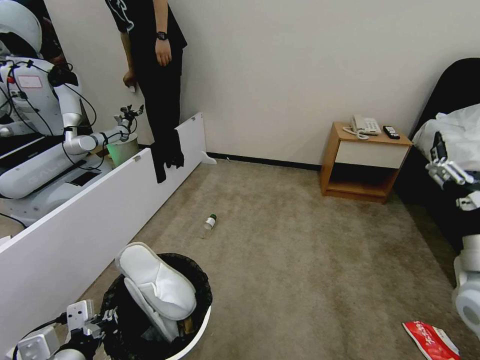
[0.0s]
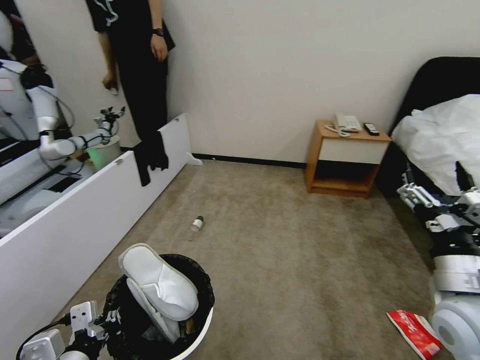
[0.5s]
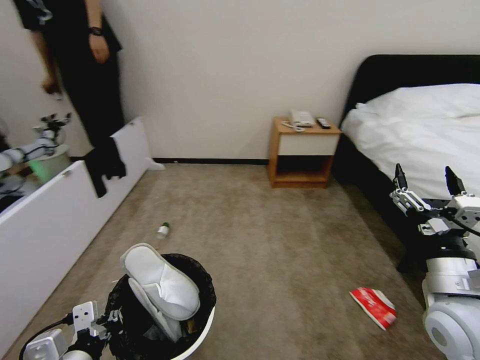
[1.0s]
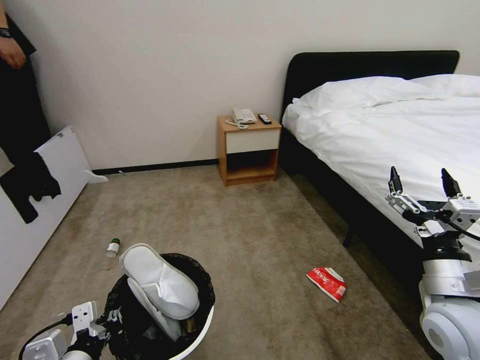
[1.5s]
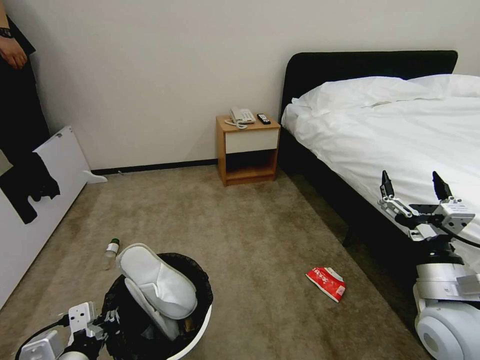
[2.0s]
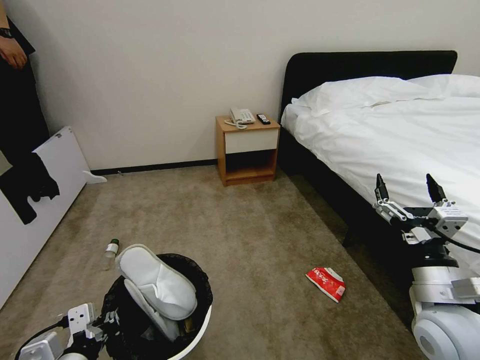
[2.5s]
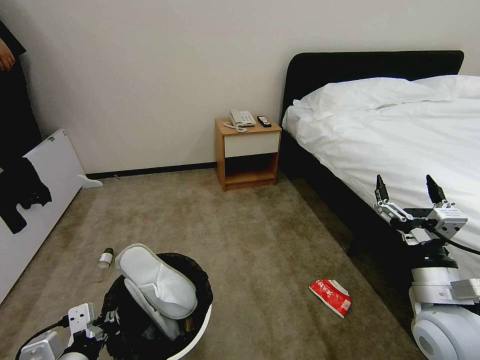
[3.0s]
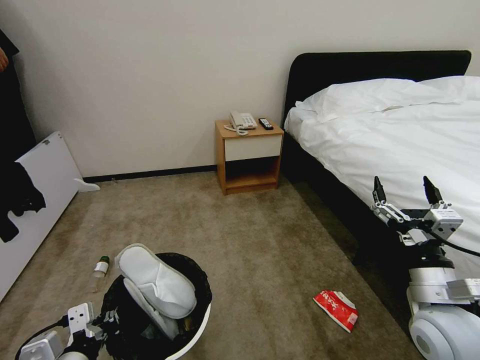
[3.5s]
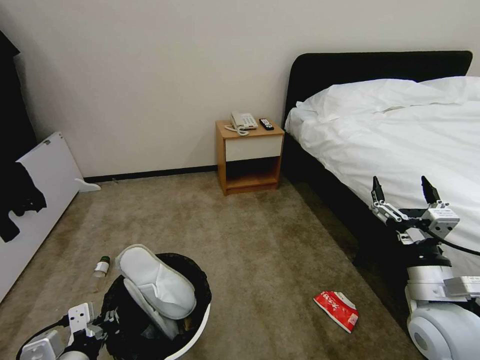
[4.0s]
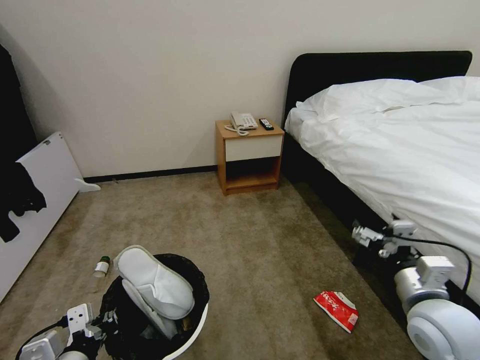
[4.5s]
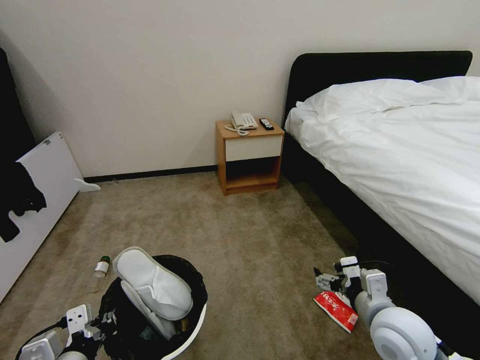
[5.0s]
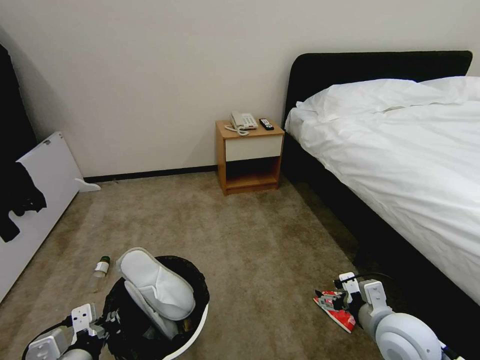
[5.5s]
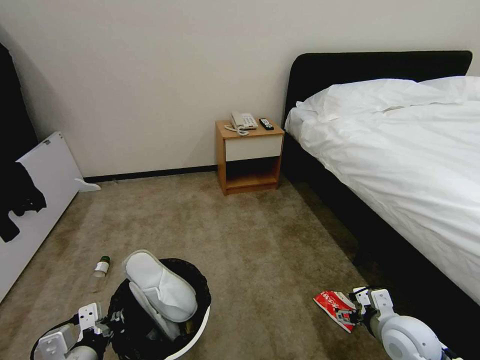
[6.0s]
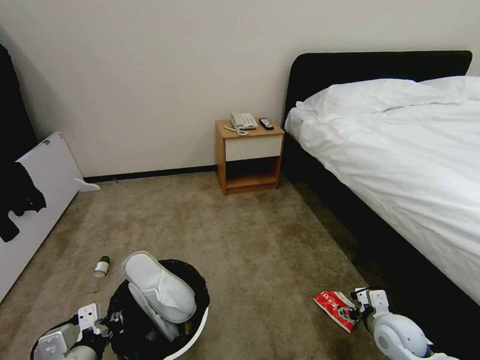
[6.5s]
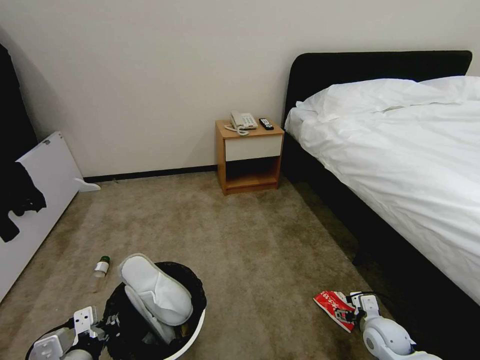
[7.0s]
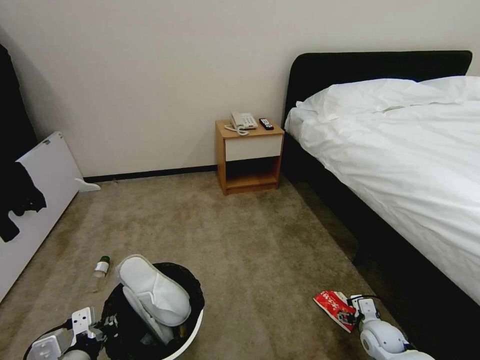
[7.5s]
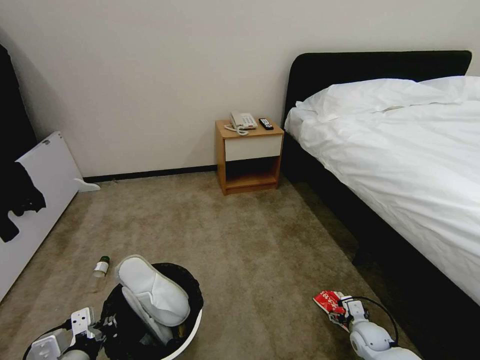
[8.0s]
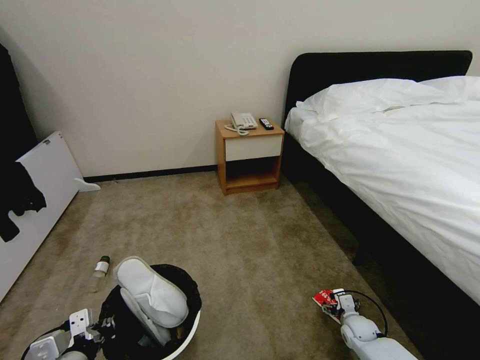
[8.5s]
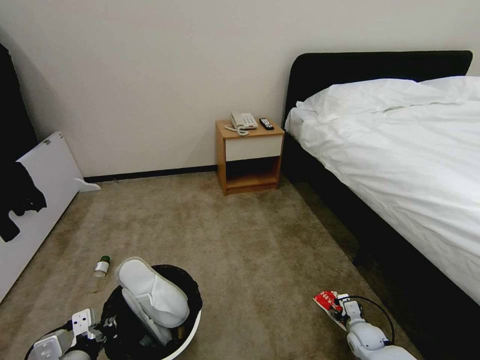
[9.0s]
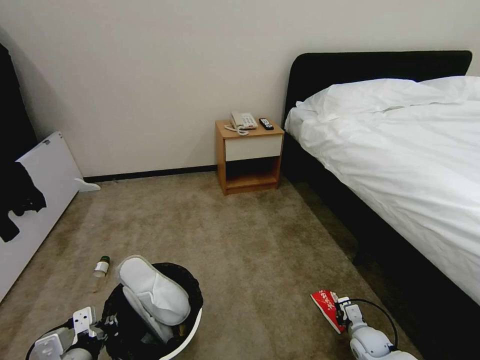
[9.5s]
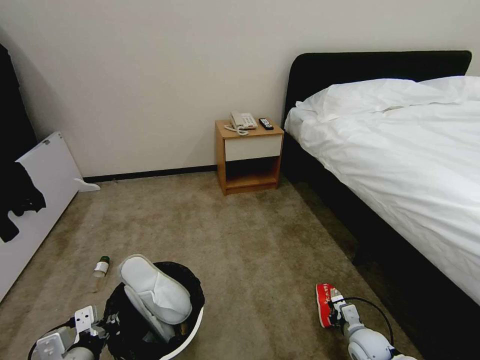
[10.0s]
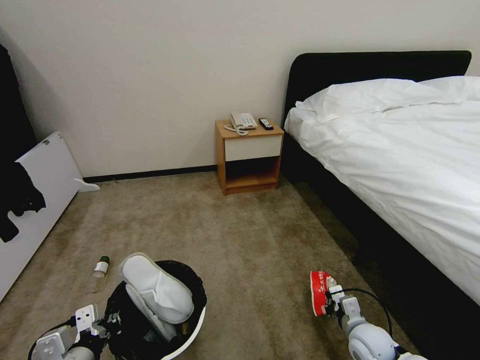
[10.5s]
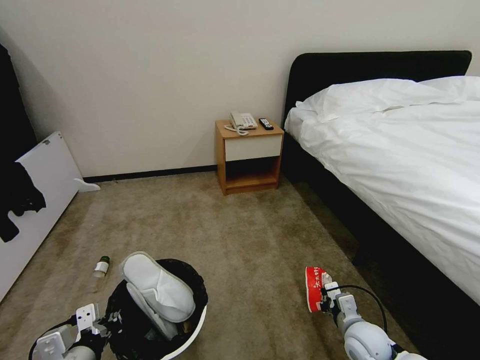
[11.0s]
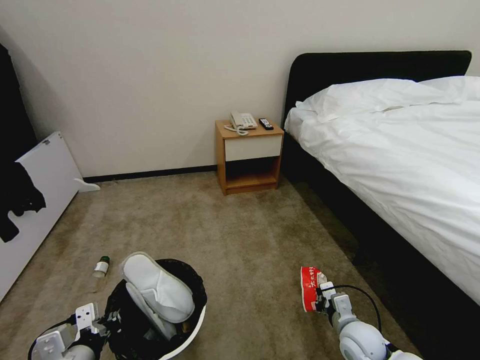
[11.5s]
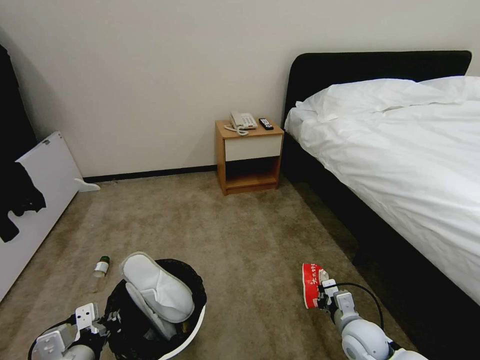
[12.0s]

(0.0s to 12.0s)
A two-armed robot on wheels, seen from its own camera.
Task of the whole recording: Pick up the trash bin, then pick up the garbage from the floor and place it into the trash bin.
0.0s - 2.0s: The right gripper travels downward by some 5 cm.
2.0s - 4.0s: The grippers make only small movements.
4.0s - 6.0s: The right gripper moves downward, approximately 10 cm.
6.0s - 8.0s: The right gripper shifts some 20 cm downward.
8.0s - 10.0s: The right gripper ends up about 5 cm from where it was, and closes its fingers.
10.0s - 12.0s: The right gripper moves upward, some 10 cm.

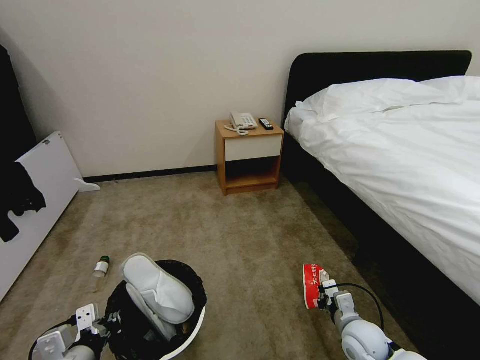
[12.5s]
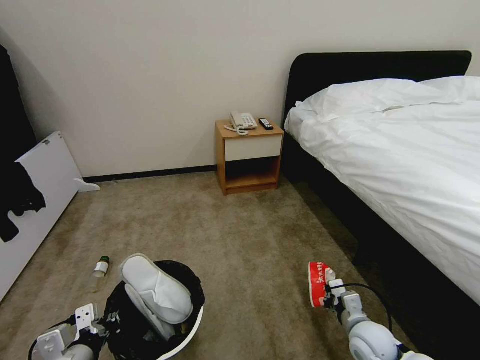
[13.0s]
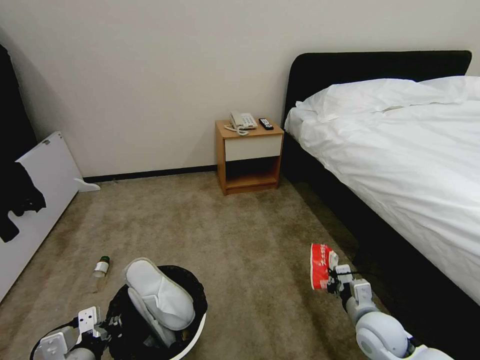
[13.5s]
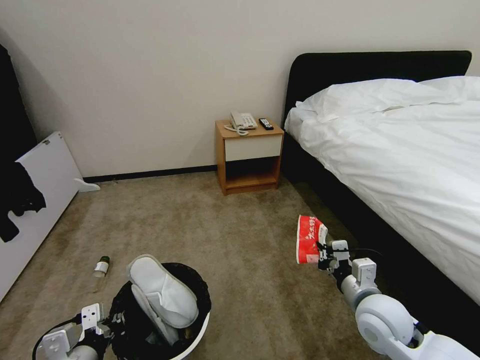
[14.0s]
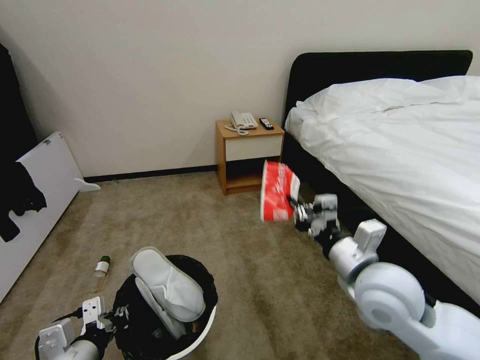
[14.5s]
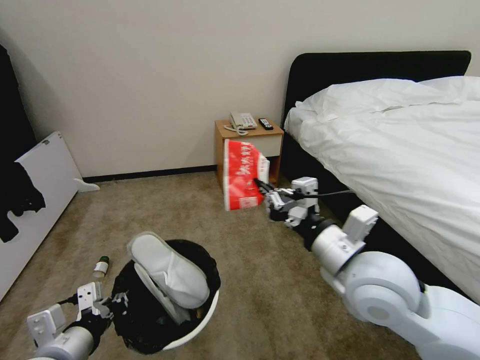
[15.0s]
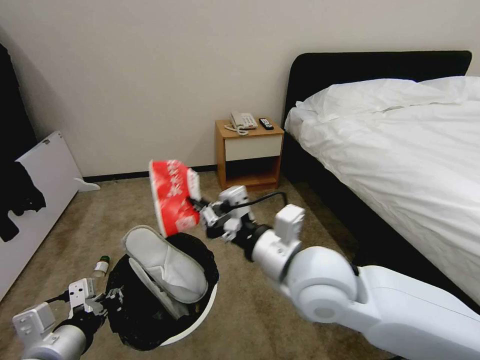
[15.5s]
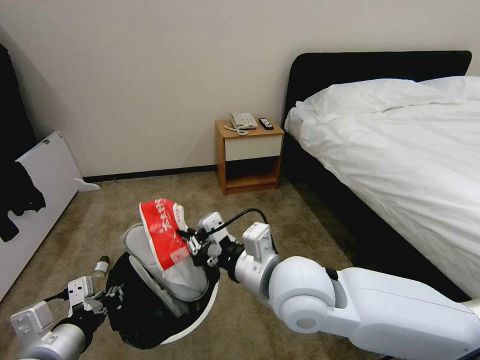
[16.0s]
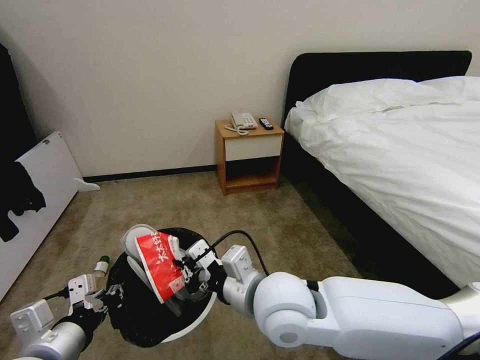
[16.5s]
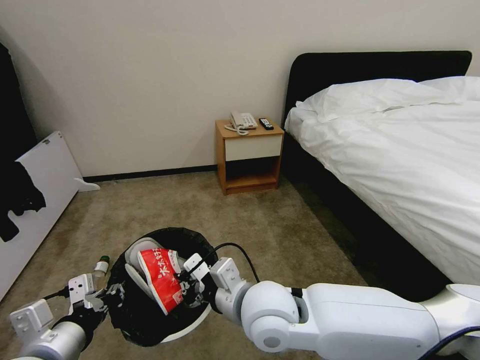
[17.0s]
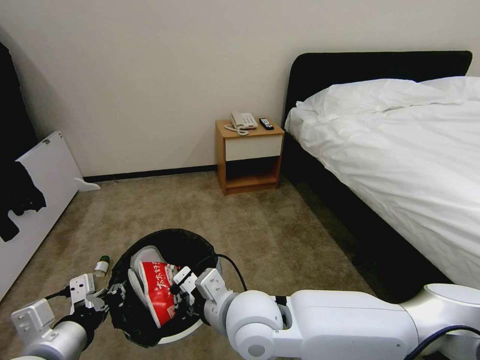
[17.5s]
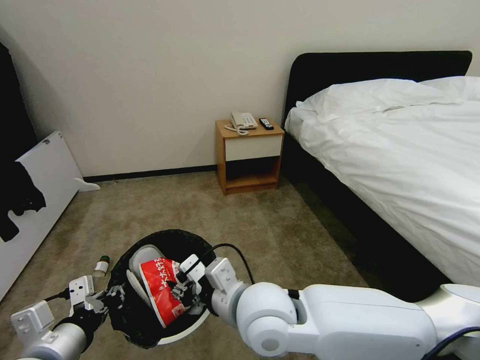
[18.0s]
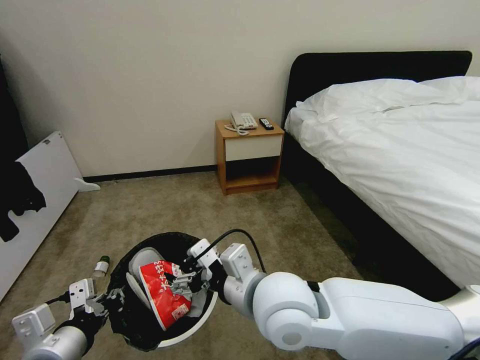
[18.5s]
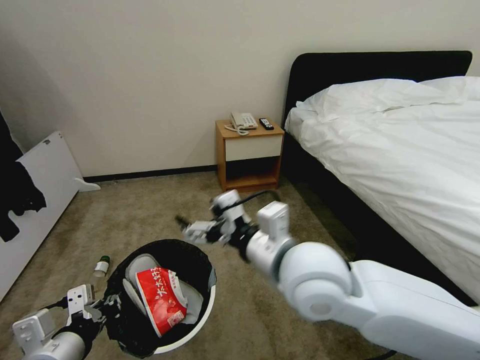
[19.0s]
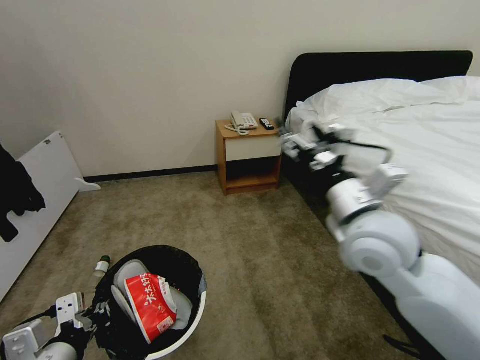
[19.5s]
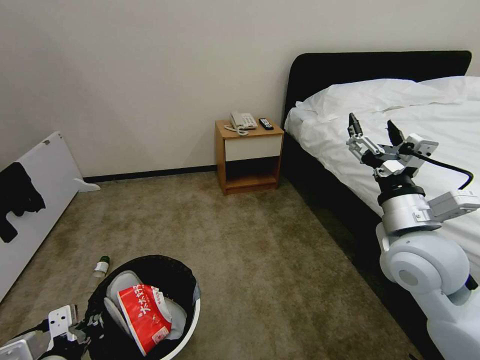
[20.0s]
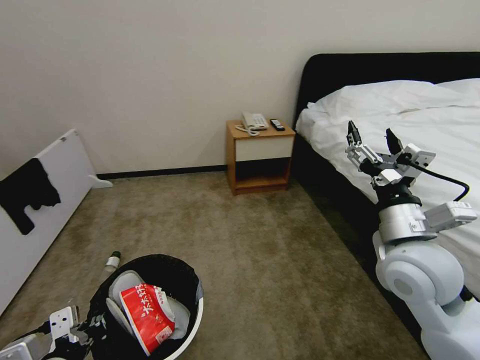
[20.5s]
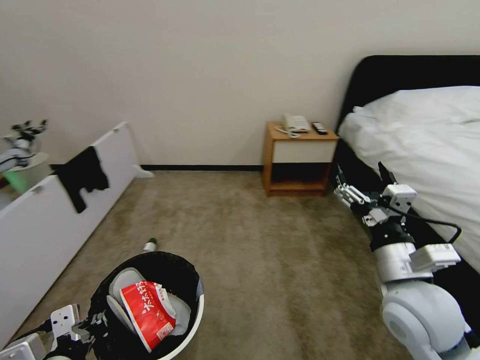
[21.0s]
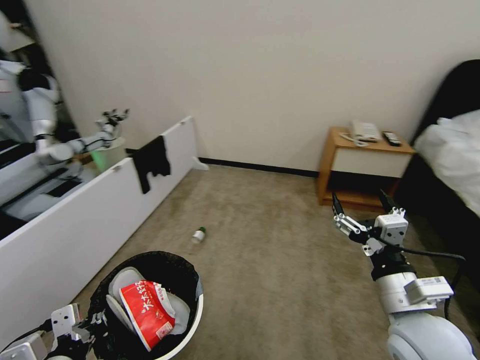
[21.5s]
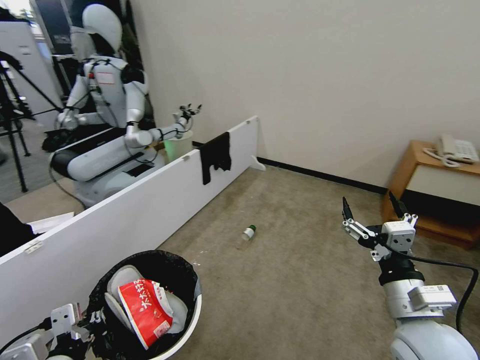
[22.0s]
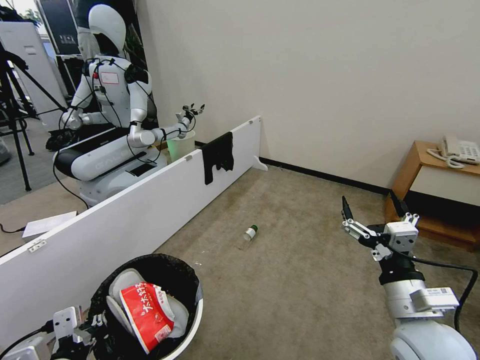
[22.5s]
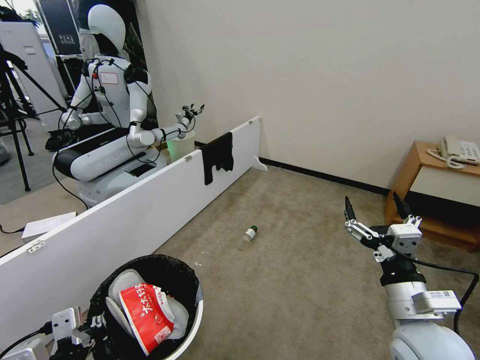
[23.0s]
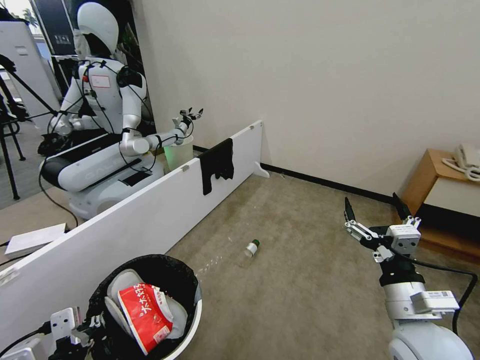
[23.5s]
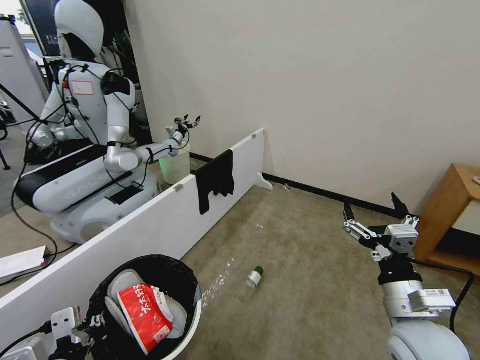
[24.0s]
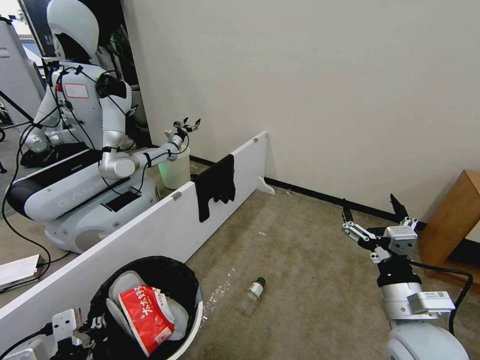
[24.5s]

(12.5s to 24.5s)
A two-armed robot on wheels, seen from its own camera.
Task of the whole recording: Pick up the trash bin, then pick up the garbage from the floor and place it into the trash bin.
12.5s - 14.5s: The right gripper travels upward by approximately 25 cm.
14.5s - 16.5s: The right gripper travels to the left by some 15 cm. The left gripper moves upward, about 5 cm.
16.5s - 18.5s: The right gripper opens its fingers.
18.5s - 20.5s: The right gripper goes roughly 20 cm to the right.
20.5s - 22.5s: The right gripper travels downward and backward by roughly 15 cm.

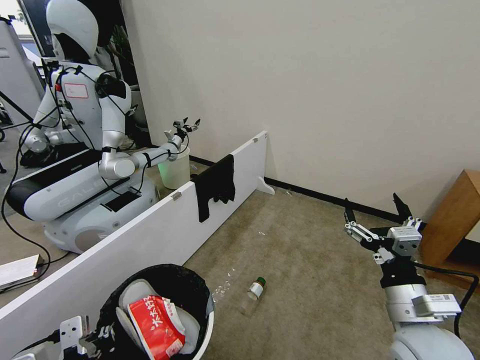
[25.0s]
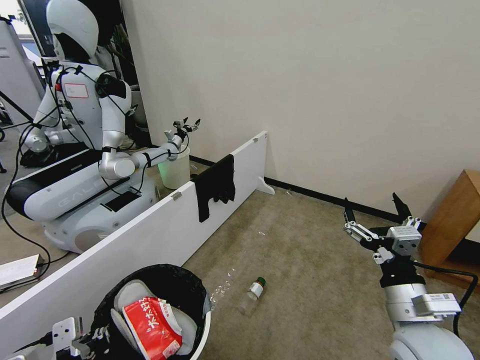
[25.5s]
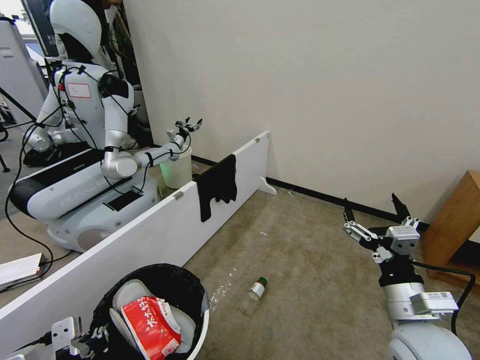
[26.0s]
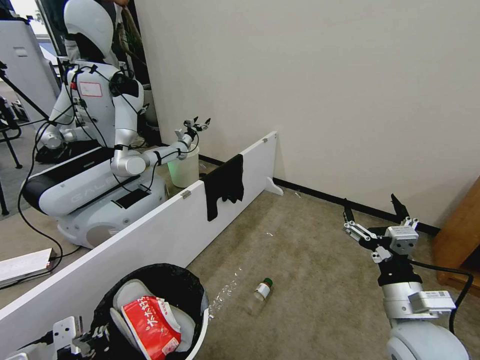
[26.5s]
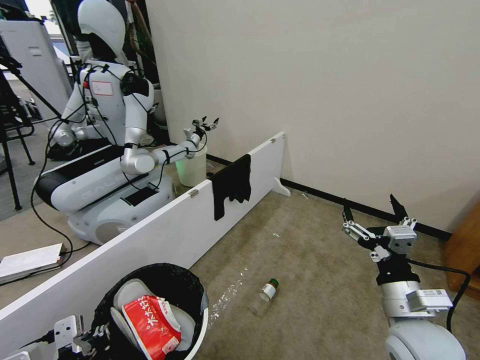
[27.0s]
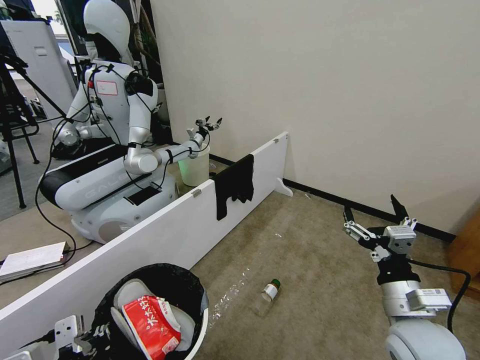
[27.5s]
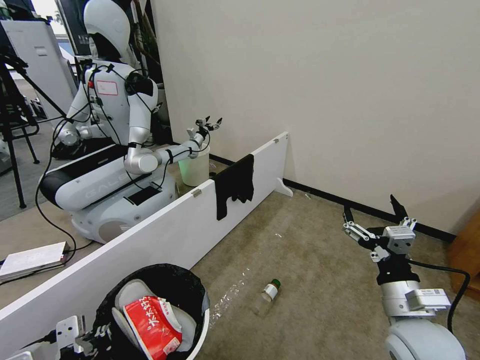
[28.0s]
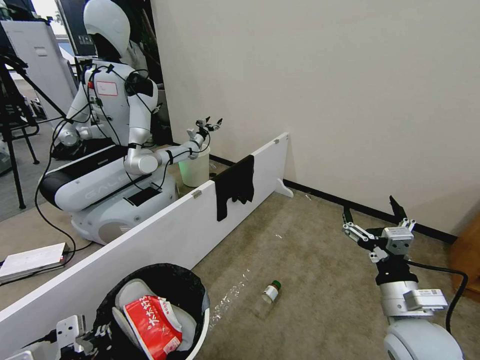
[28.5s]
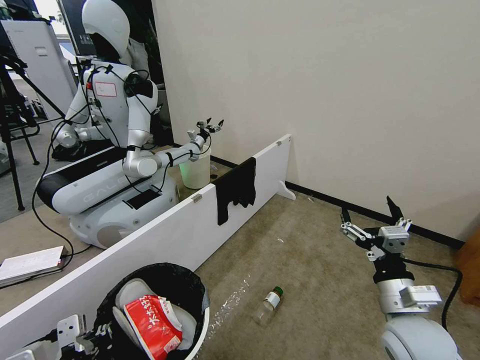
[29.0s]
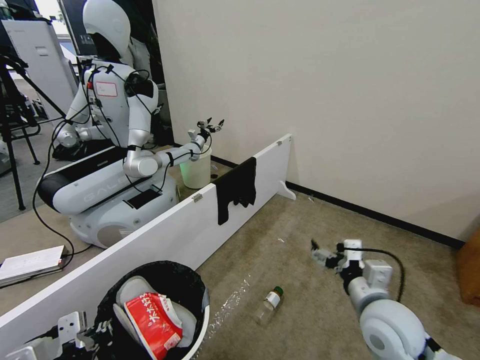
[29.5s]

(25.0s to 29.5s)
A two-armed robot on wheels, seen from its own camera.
Task of the whole recording: Pick up the trash bin, then pick up the garbage from the floor and place it into the trash bin.
27.0s - 29.5s: The right gripper changes place by roughly 5 cm.
